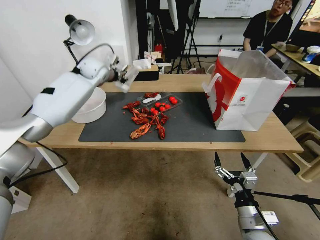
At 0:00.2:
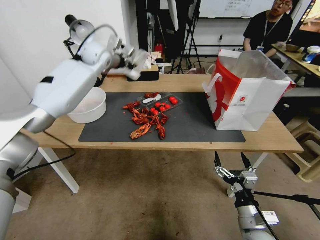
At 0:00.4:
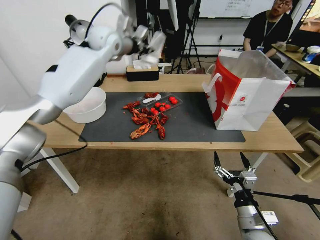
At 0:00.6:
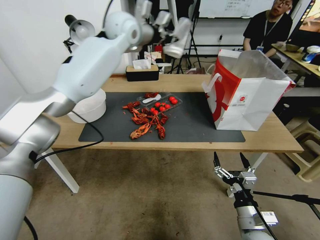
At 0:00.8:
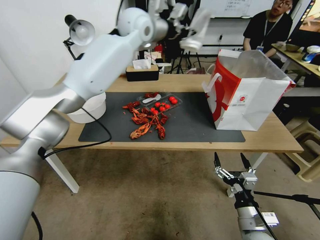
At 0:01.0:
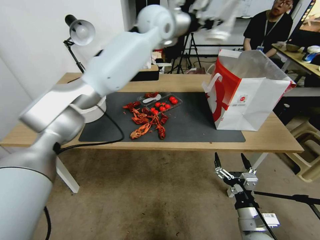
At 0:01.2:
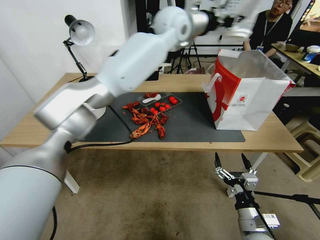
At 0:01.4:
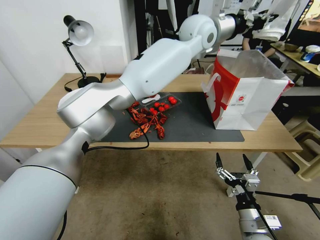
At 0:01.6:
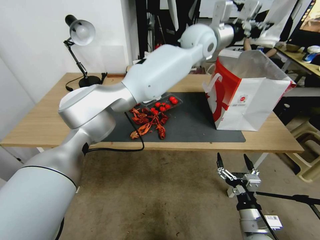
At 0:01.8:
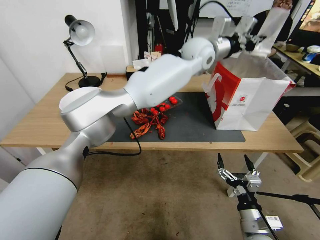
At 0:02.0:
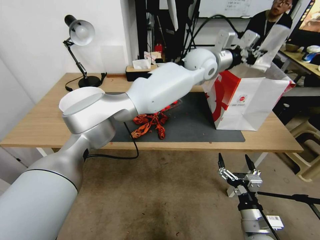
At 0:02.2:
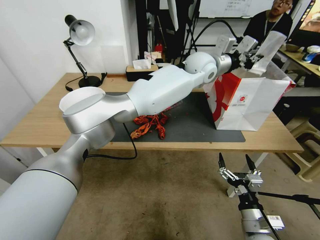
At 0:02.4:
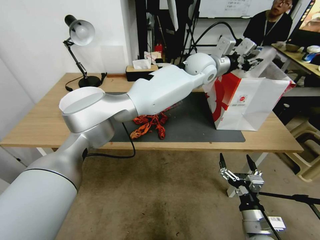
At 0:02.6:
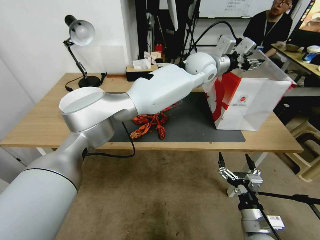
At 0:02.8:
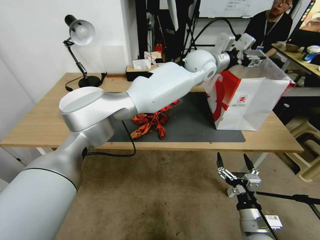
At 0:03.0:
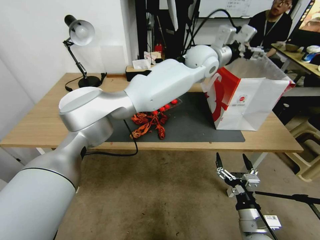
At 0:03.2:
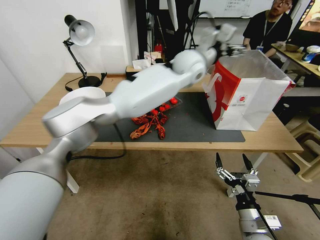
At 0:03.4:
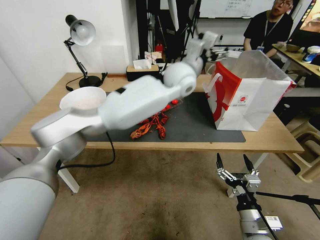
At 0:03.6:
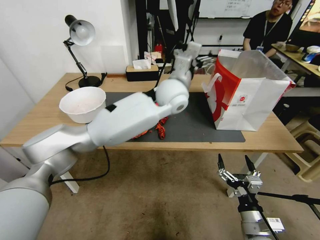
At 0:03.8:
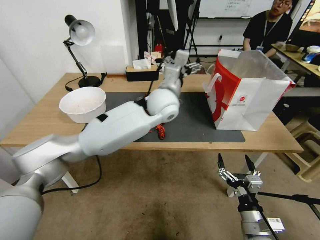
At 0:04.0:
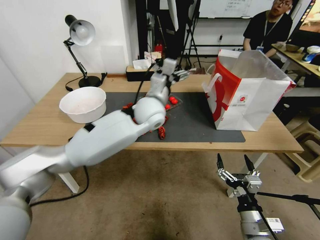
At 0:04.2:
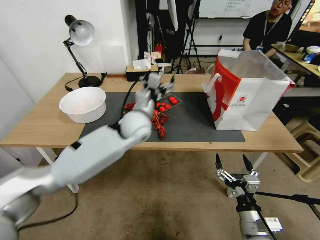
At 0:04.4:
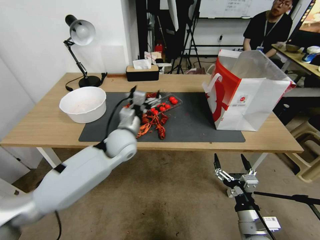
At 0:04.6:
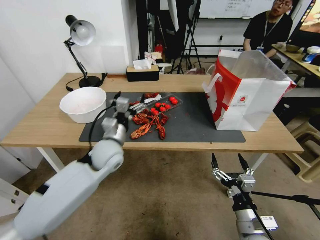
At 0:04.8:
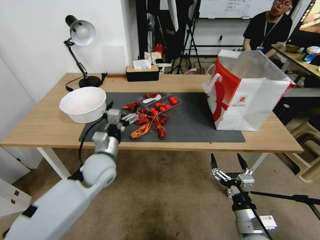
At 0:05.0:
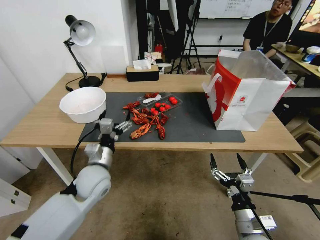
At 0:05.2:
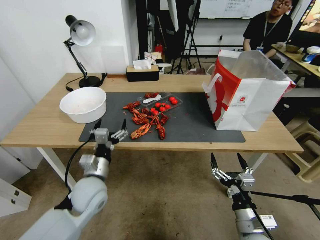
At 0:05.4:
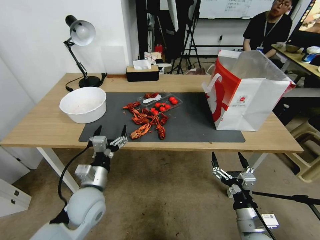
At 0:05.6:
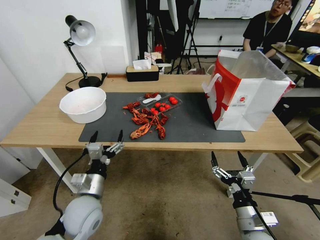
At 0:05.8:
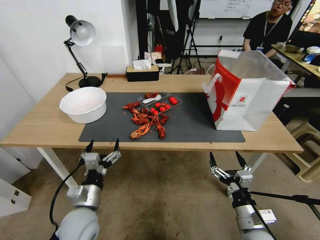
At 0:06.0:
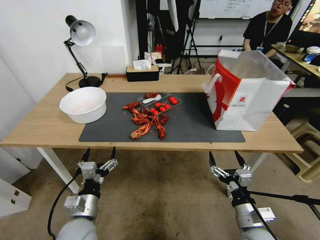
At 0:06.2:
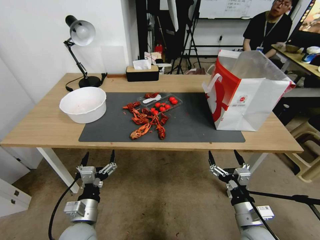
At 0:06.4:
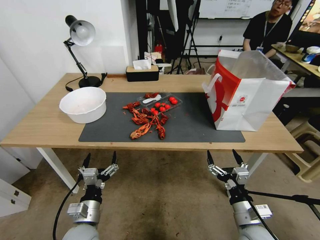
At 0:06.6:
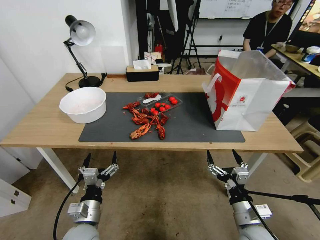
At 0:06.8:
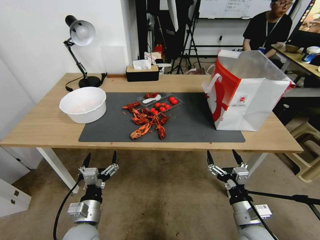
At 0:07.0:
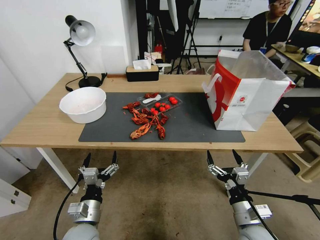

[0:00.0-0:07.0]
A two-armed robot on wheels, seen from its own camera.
0:00.0 to 0:01.4: The left gripper heads to the right and upward, covering about 40 cm.
0:01.4 to 0:02.8: The left gripper moves downward, some 10 cm, and opens.
0:02.8 to 0:04.2: The left gripper is displaced to the left, downward and backward by approximately 25 cm.
0:04.2 to 0:05.6: The left gripper shifts approximately 25 cm backward, to the left and downward.
0:05.6 to 0:07.0: The left gripper travels backward and downward by about 10 cm.
